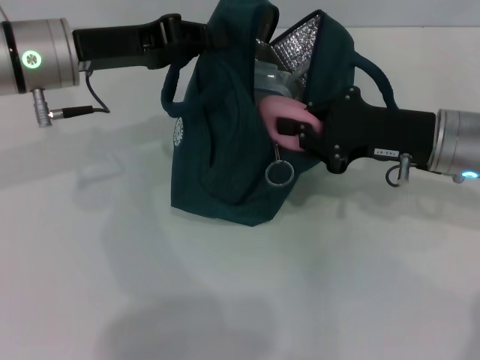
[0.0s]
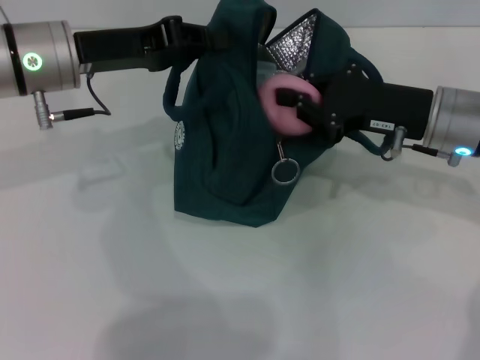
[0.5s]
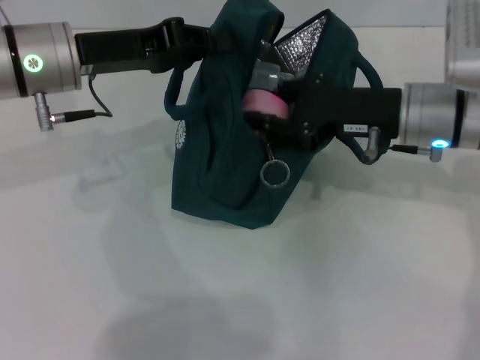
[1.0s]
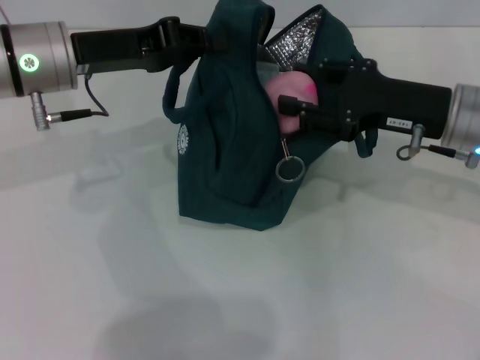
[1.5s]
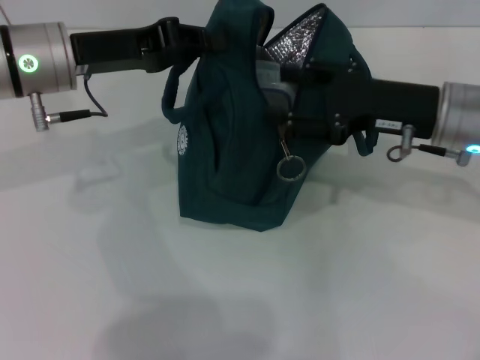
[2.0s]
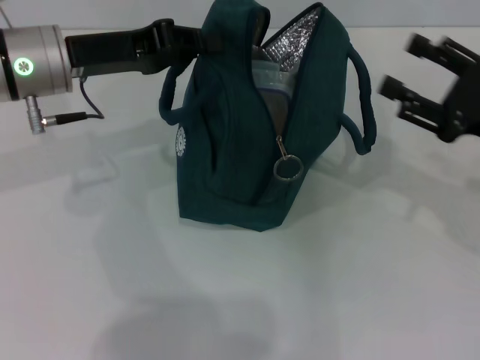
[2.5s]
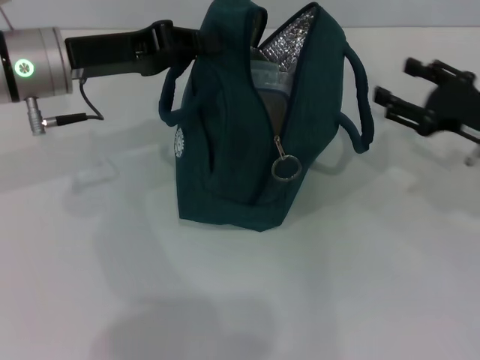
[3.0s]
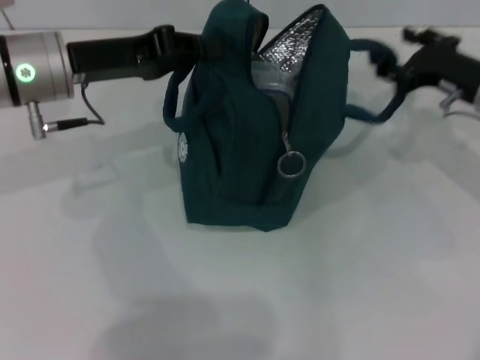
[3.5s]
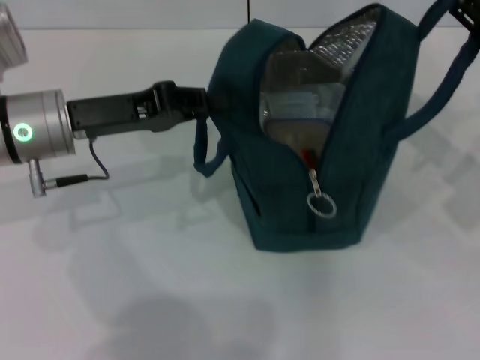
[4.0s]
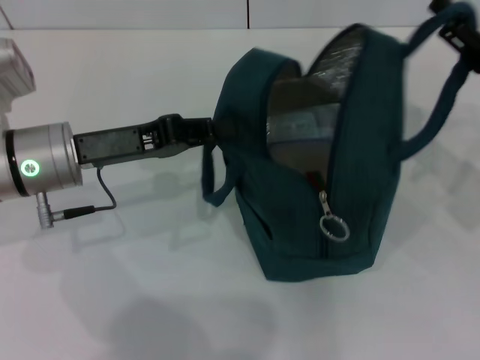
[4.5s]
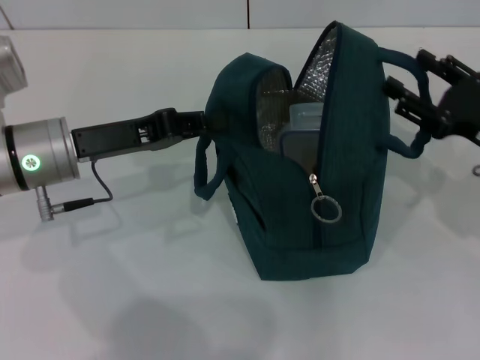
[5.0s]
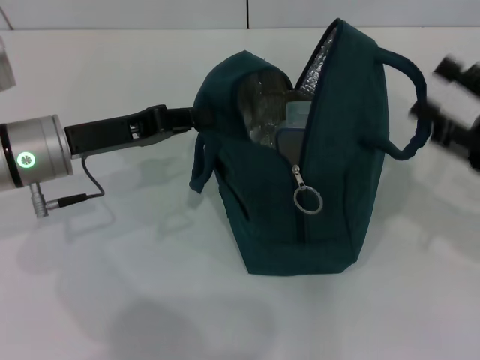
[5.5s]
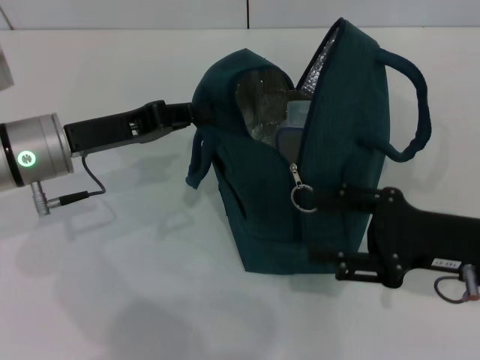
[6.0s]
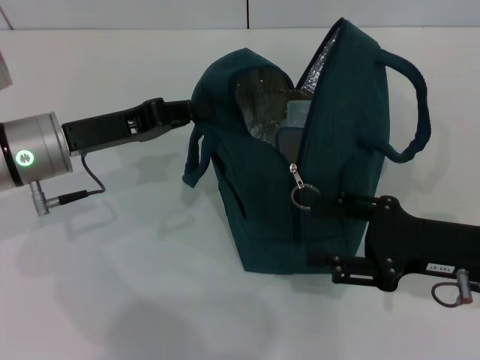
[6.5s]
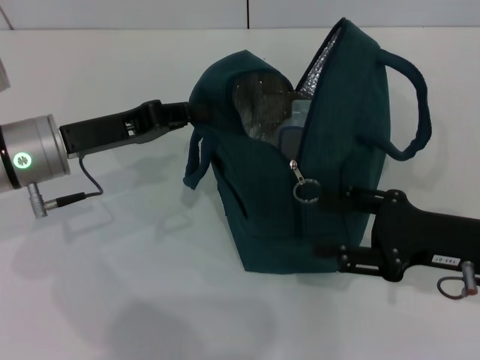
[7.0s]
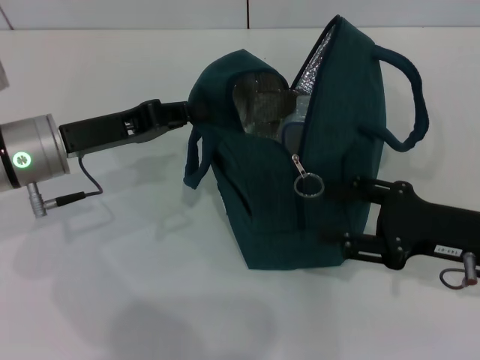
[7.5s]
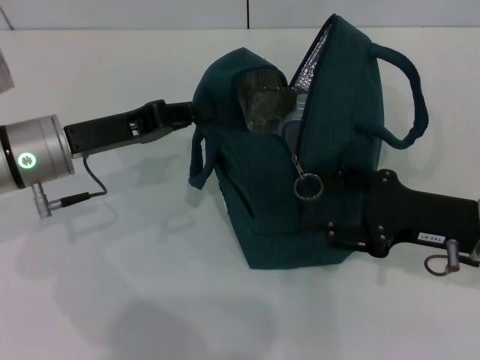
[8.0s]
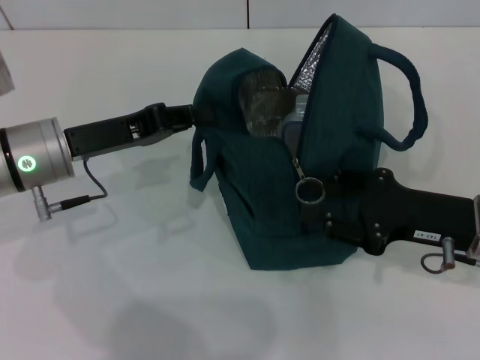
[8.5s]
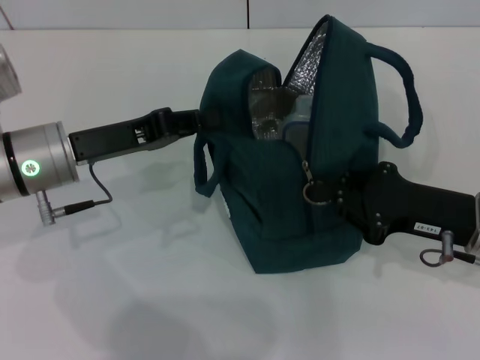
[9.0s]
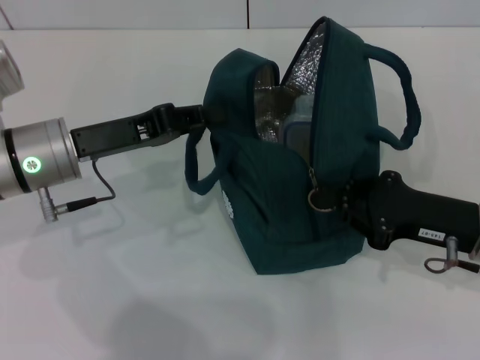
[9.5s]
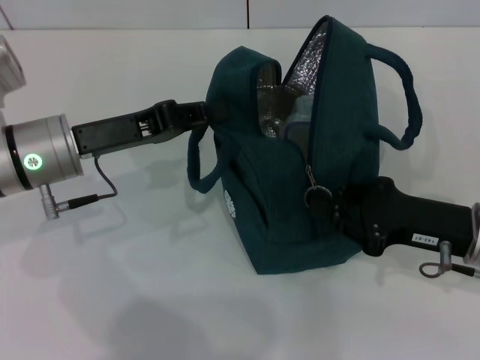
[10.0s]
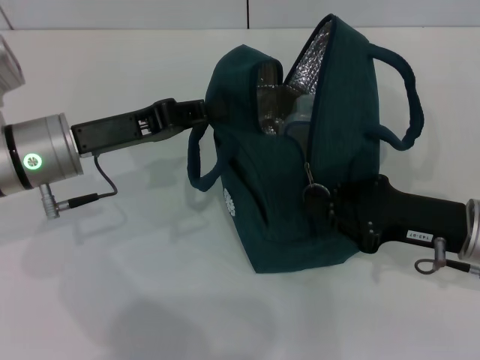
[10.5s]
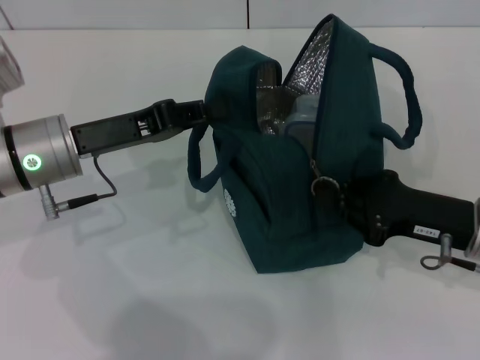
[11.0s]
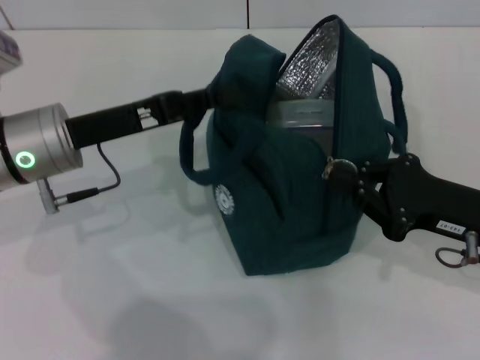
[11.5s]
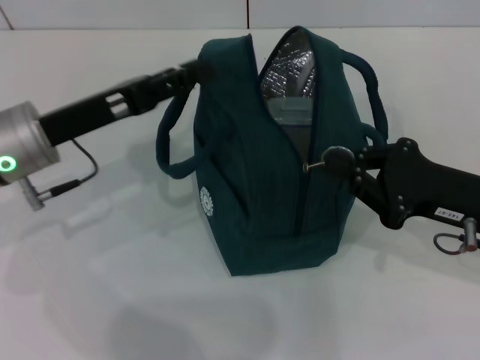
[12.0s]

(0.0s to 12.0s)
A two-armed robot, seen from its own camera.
Step, 2.0s - 4.5s: Hold the lunch bag with your right hand.
Step, 5.0s - 11.5s: Hold the lunch bag with your left hand.
0.0s - 2.0s: The right gripper opens up.
2.0s - 4.0s: The left gripper moves roughly 5 cm. Meanwhile the right gripper moves to the right, some 10 cm.
4.0s - 6.0s: The right gripper is displaced backward and to the left by roughly 10 cm.
6.0s - 8.0s: The grippers make only small movements.
8.0s - 10.0s: The right gripper closes its fingers.

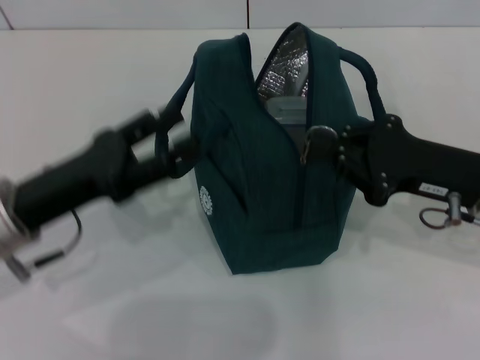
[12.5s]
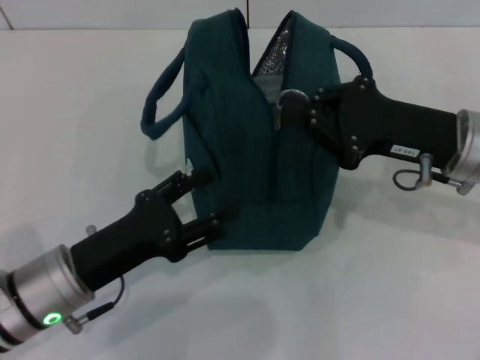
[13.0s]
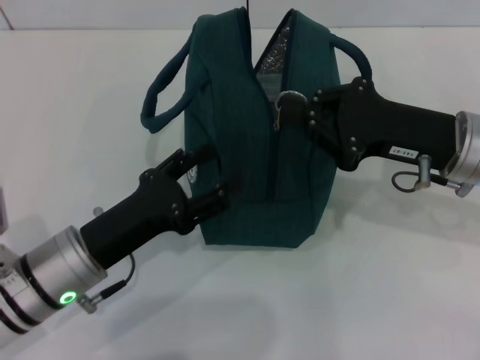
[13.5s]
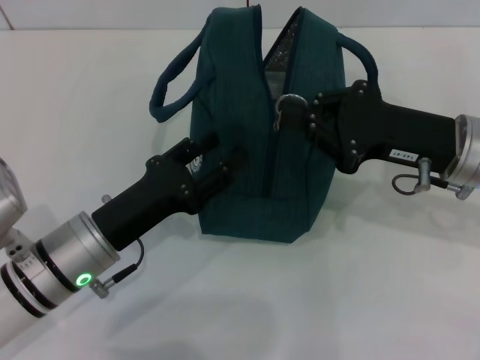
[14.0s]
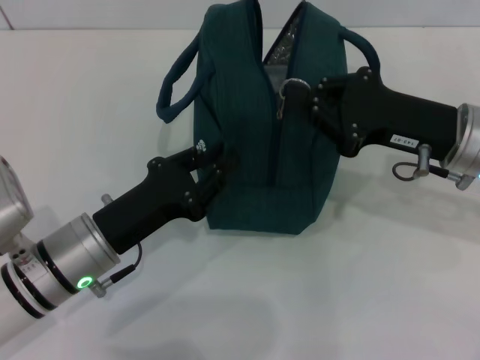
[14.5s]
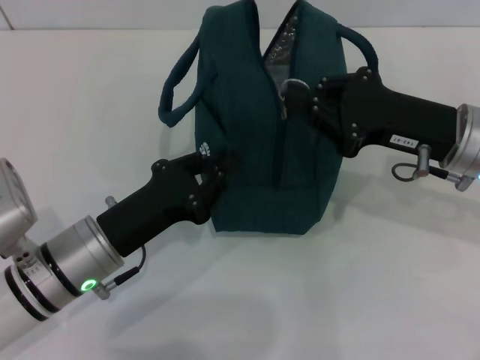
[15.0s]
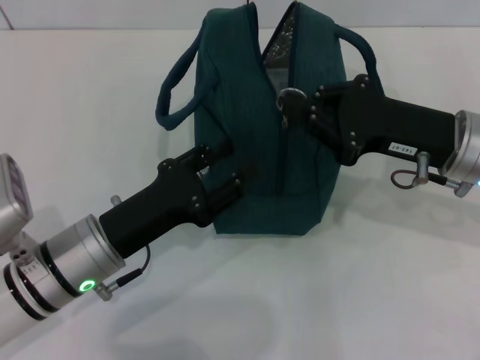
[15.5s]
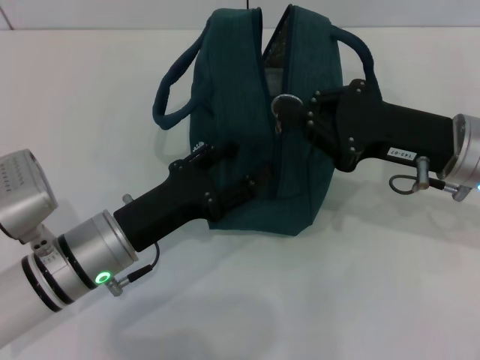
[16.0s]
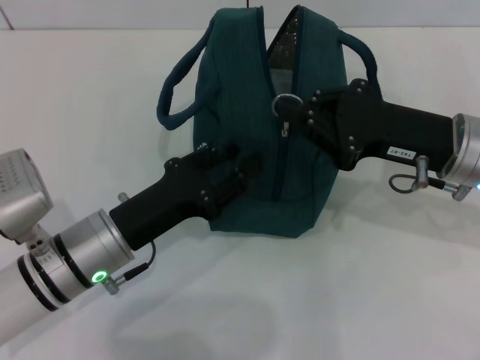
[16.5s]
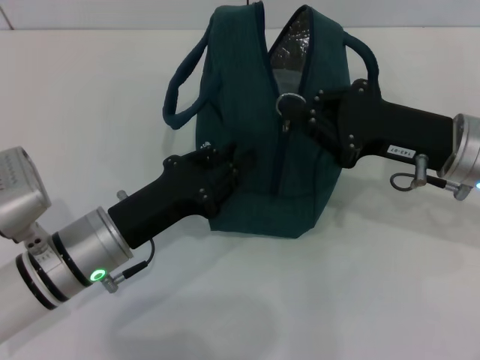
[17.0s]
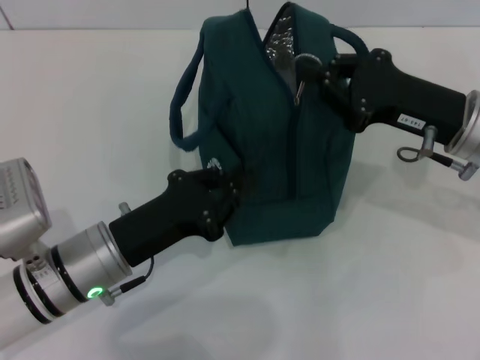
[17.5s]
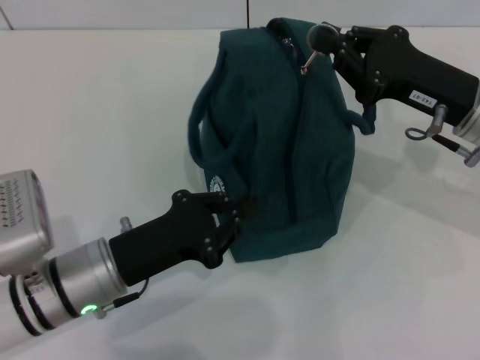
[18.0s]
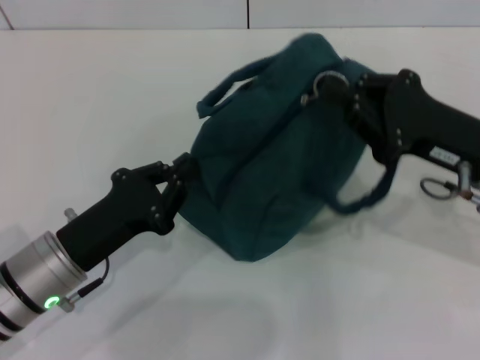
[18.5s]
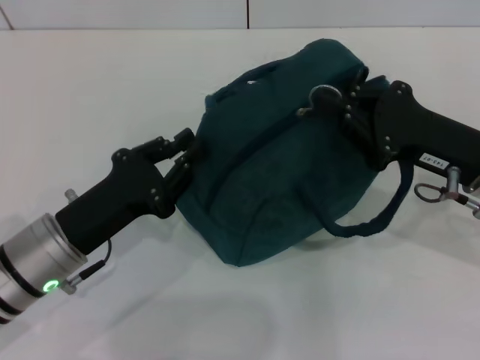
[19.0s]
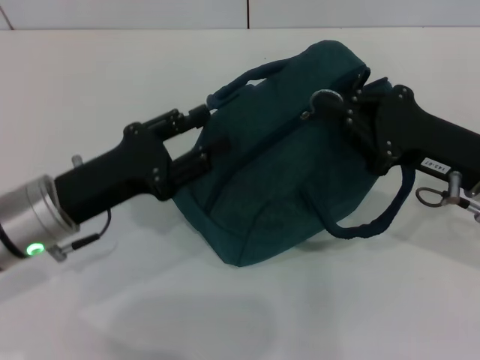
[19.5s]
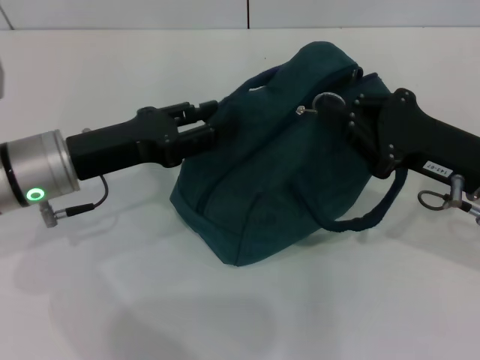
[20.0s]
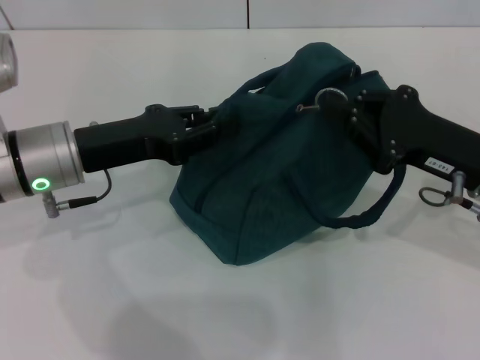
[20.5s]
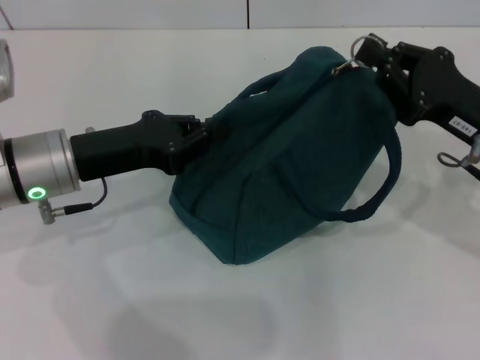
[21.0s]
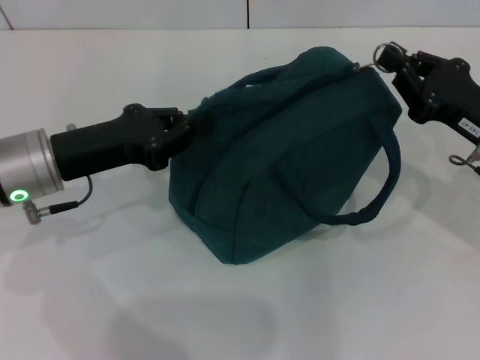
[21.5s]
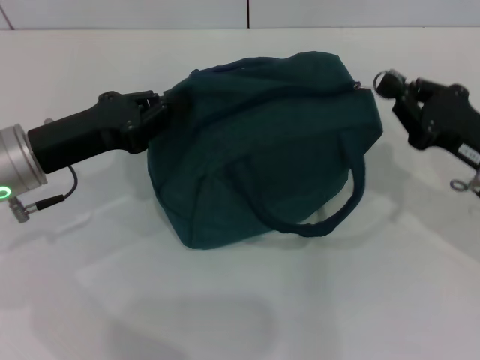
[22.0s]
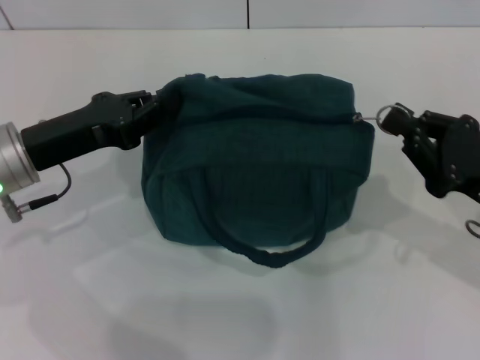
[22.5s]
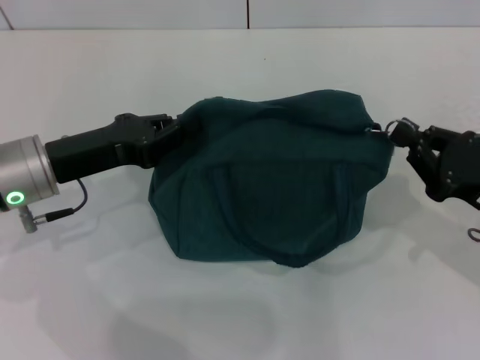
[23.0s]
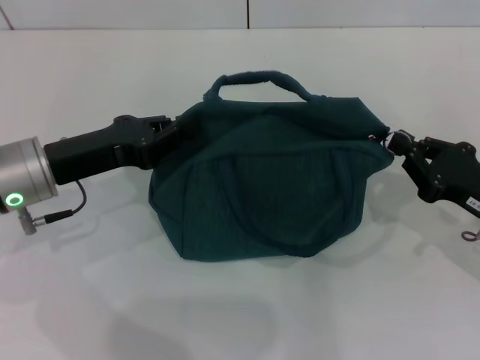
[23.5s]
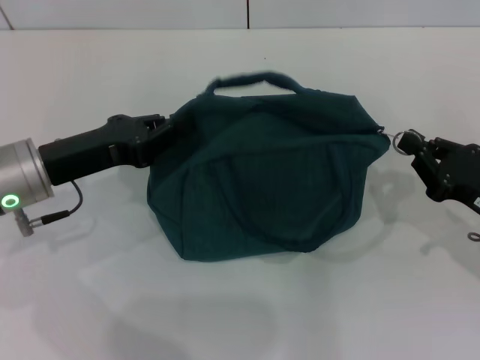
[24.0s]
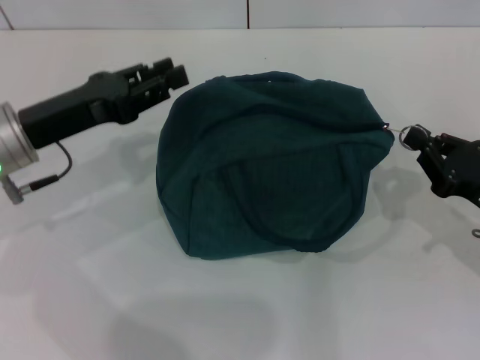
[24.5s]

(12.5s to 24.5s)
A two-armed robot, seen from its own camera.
12.5s - 14.5s: The left gripper travels downward and to the right by about 10 cm, and closes its fingers.
14.5s - 16.5s: The grippers stay close to where they were, moving slightly.
16.5s - 18.5s: The left gripper closes.
18.5s - 20.5s: The left gripper shifts approximately 10 cm forward and upward, and opens its fingers.
20.5s - 22.5s: The left gripper closes, while the right gripper shifts by some 5 cm.

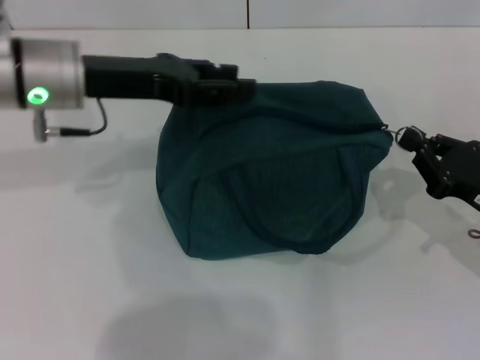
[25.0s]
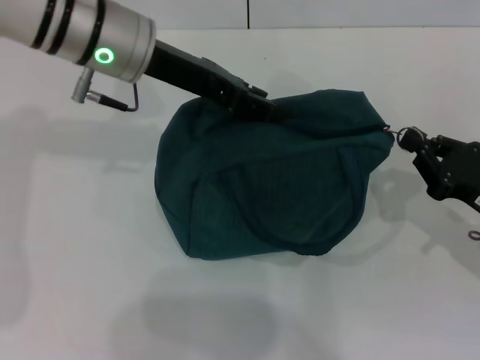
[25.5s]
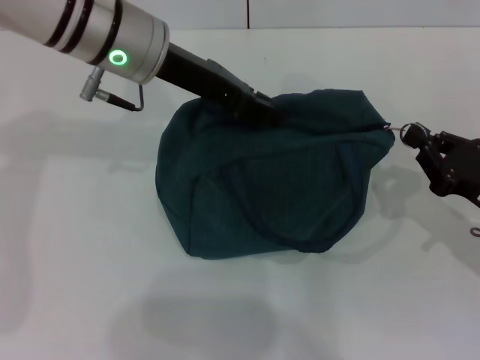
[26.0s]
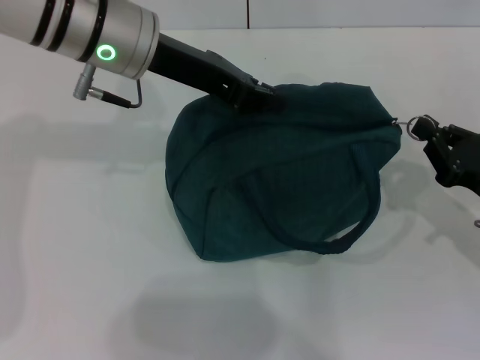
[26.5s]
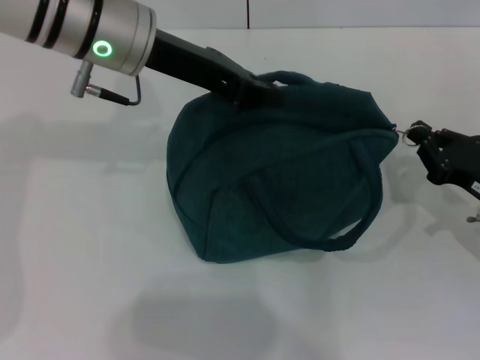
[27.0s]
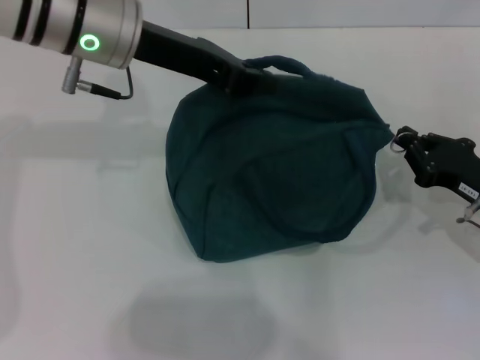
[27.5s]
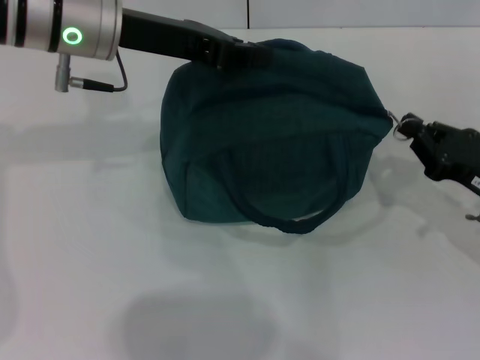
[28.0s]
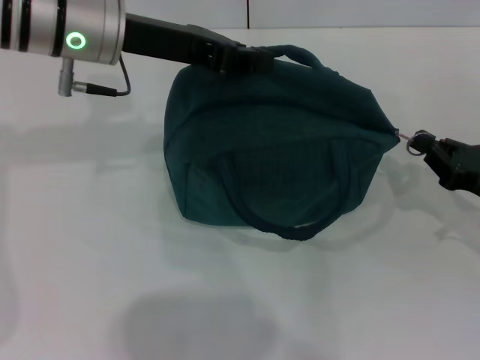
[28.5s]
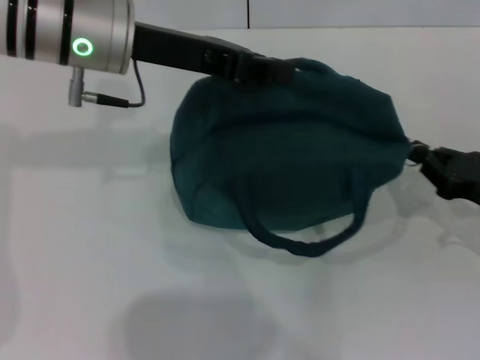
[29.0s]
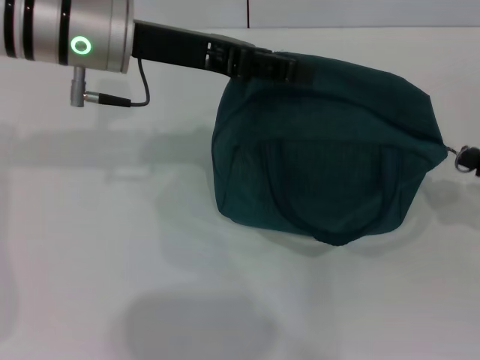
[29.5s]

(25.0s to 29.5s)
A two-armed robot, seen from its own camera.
25.0s - 27.0s: The left gripper travels to the right by some 5 cm, and closes up.
27.0s - 29.5s: The right gripper moves to the right, roughly 5 cm.
